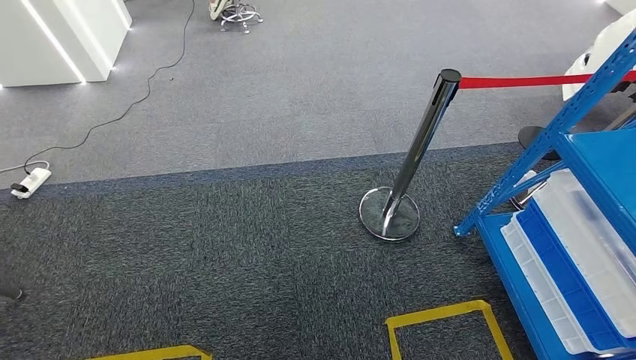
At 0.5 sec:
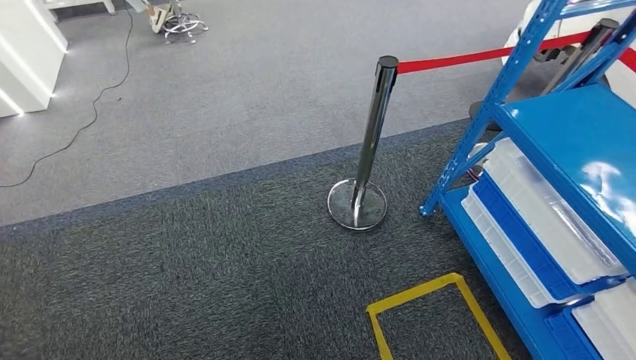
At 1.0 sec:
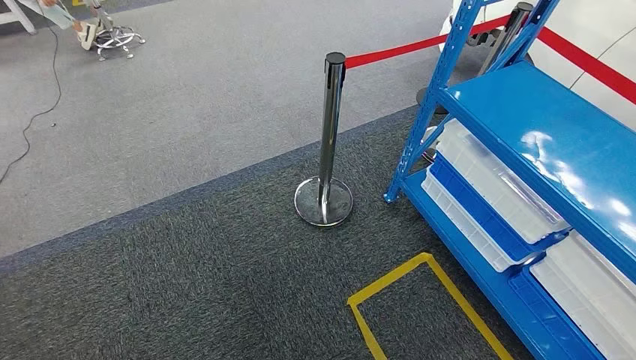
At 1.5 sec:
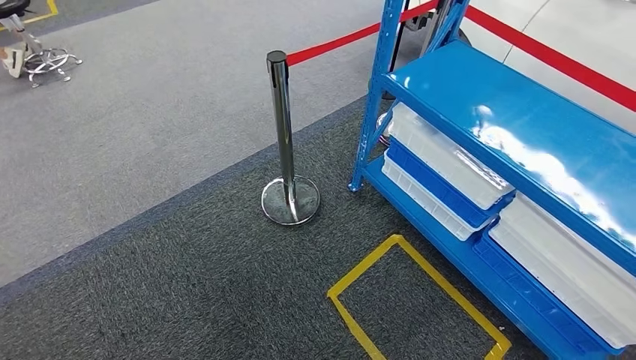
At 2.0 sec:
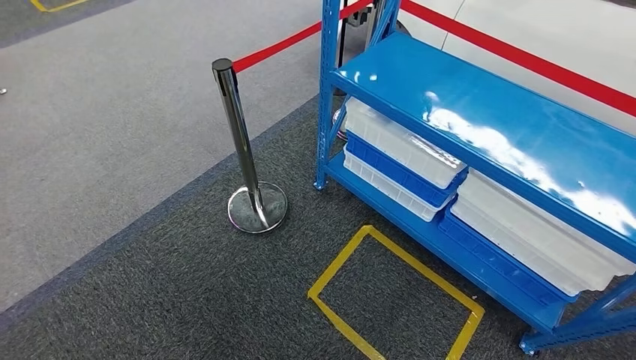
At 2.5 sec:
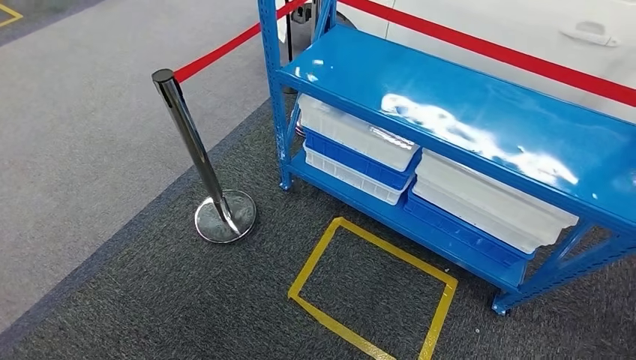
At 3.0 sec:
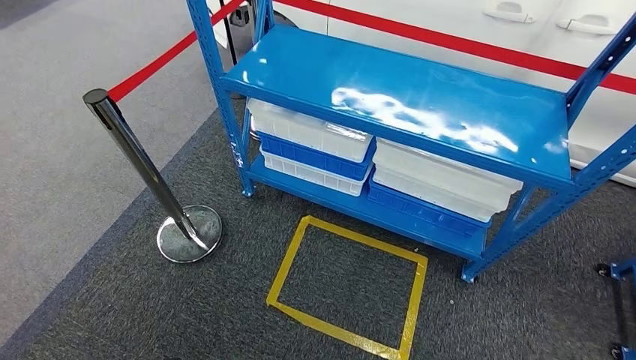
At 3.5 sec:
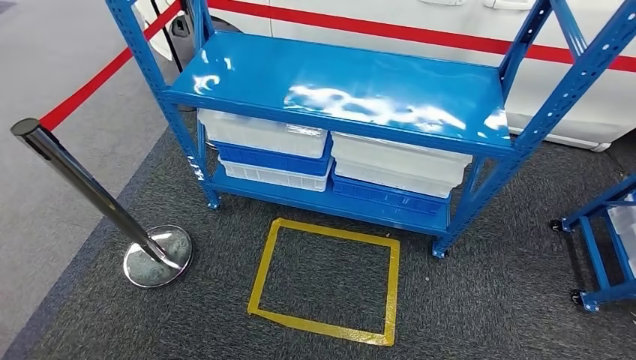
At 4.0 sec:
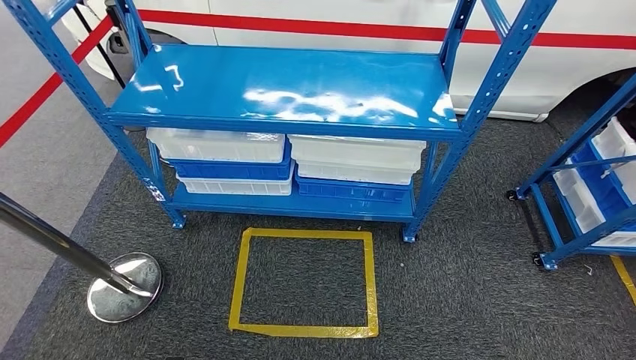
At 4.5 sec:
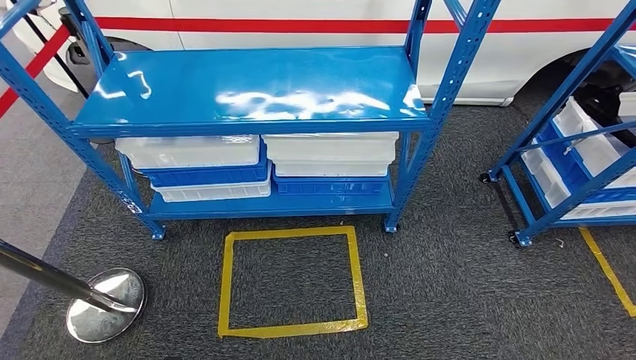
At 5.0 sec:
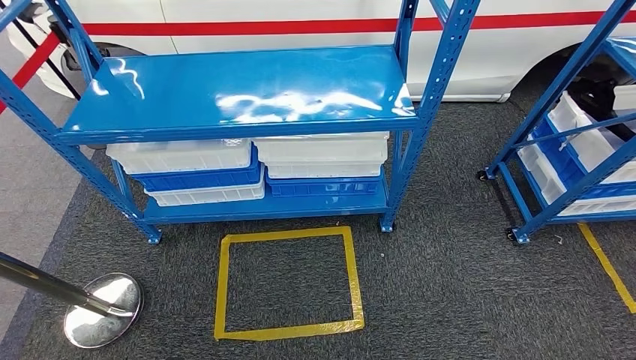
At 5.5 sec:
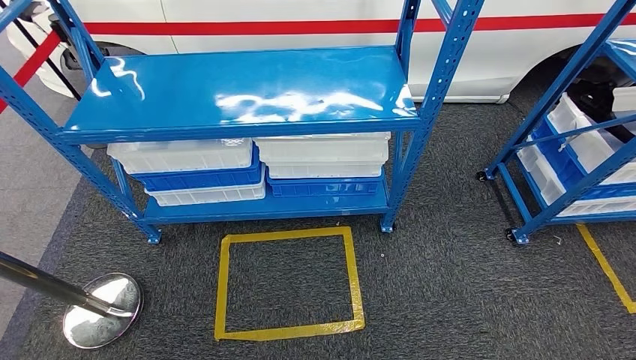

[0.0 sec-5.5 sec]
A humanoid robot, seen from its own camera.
Step, 0.0 sec to 5.5 sec: Move to the initial position of the shelf.

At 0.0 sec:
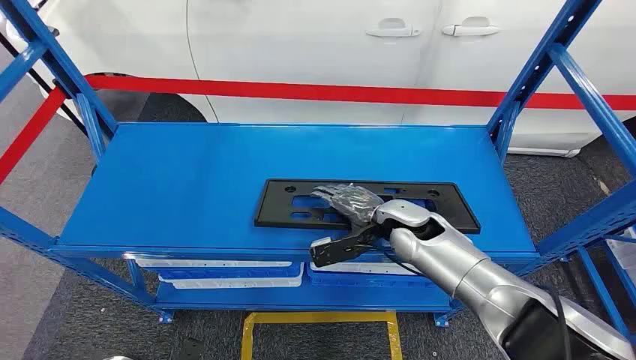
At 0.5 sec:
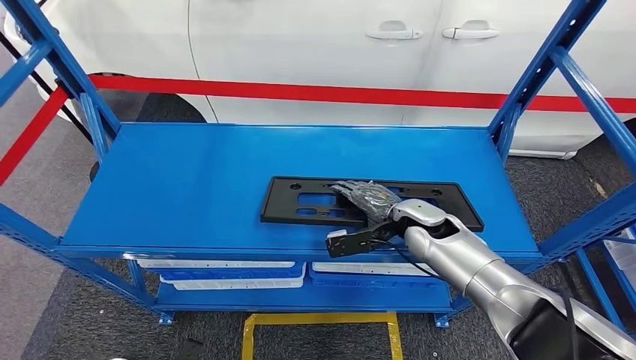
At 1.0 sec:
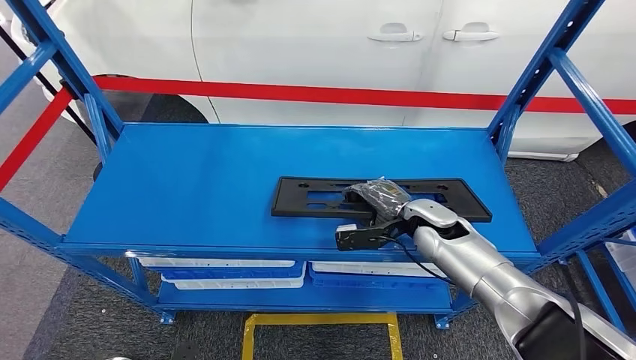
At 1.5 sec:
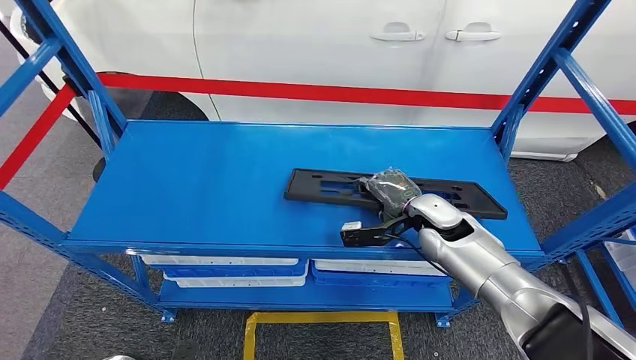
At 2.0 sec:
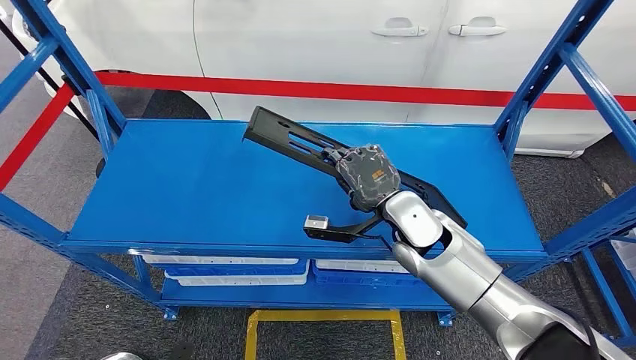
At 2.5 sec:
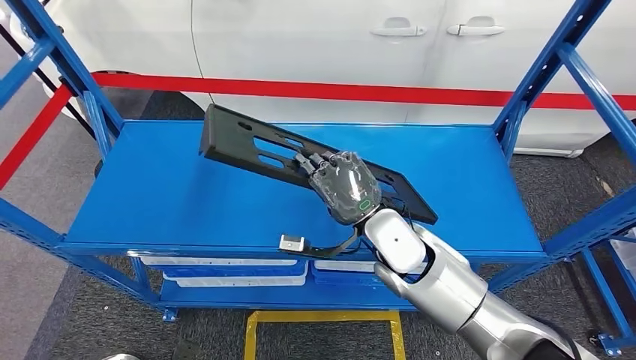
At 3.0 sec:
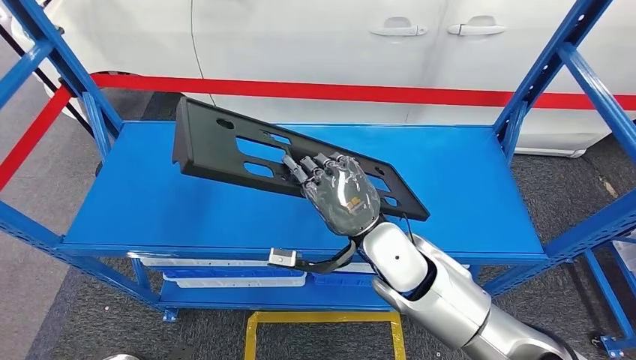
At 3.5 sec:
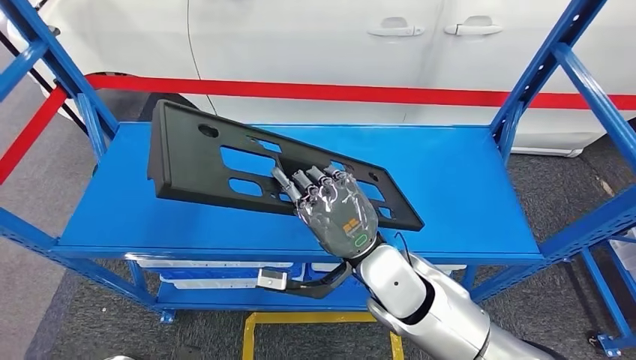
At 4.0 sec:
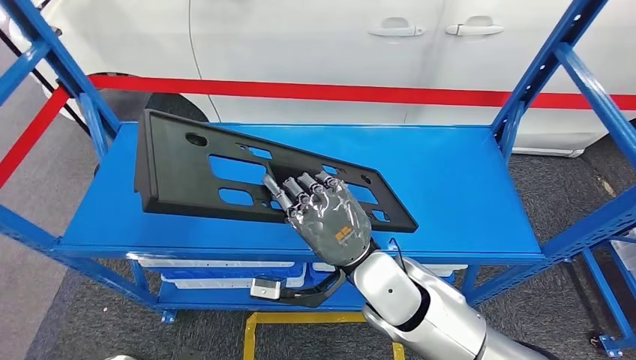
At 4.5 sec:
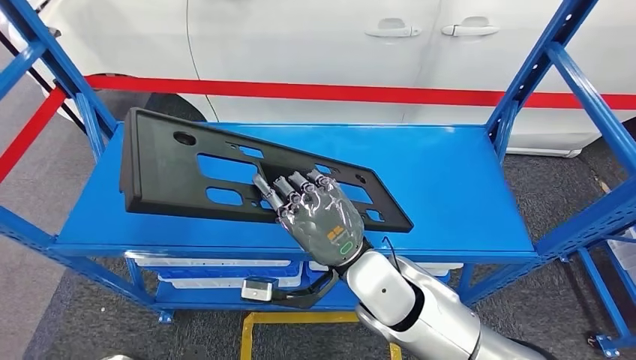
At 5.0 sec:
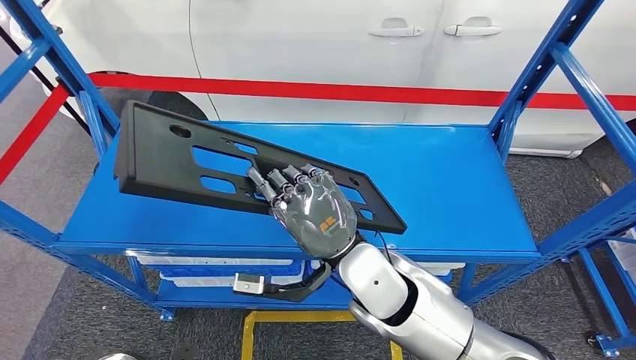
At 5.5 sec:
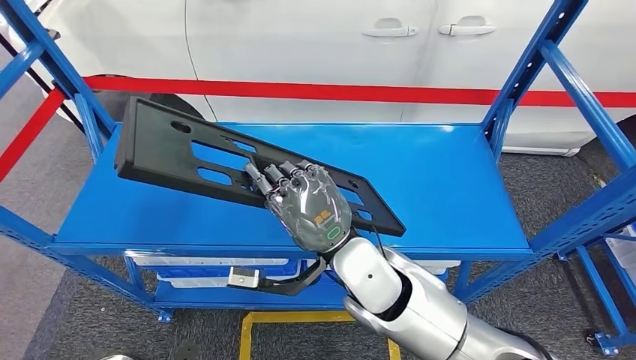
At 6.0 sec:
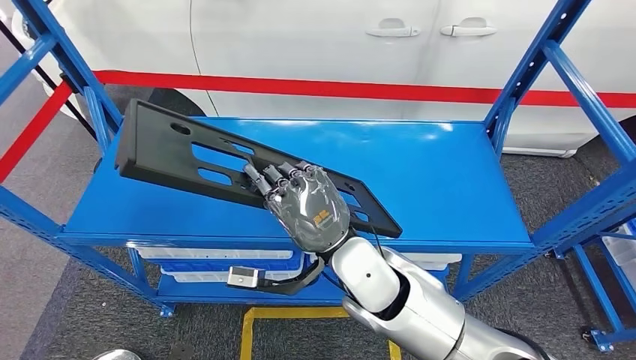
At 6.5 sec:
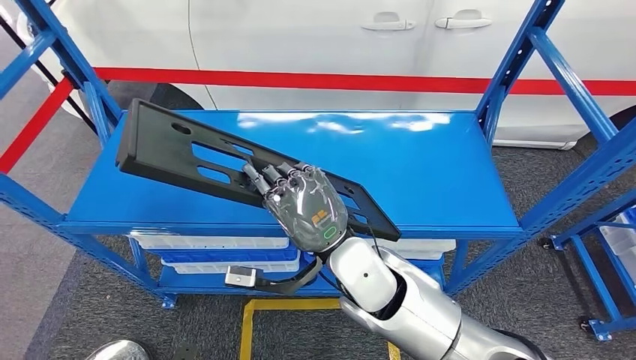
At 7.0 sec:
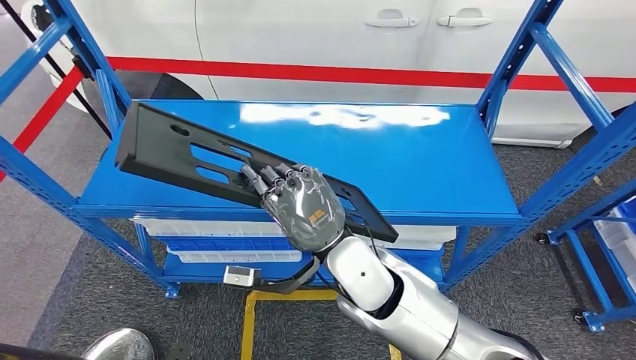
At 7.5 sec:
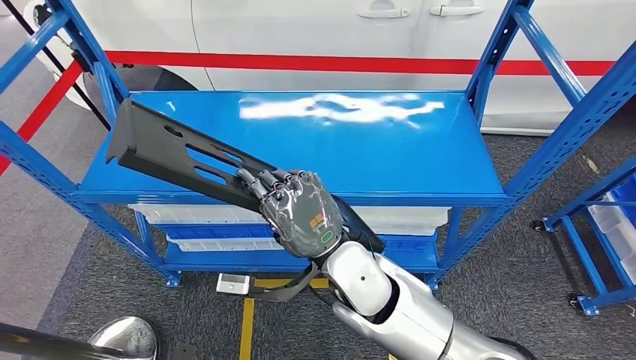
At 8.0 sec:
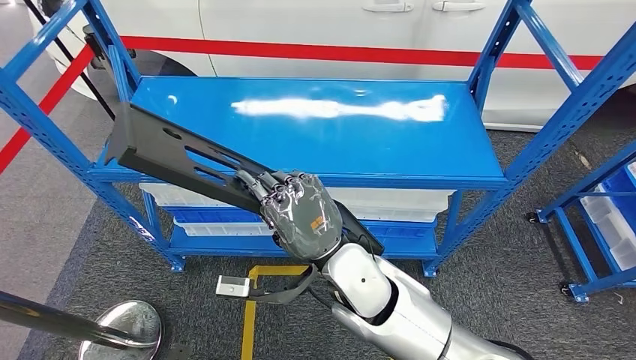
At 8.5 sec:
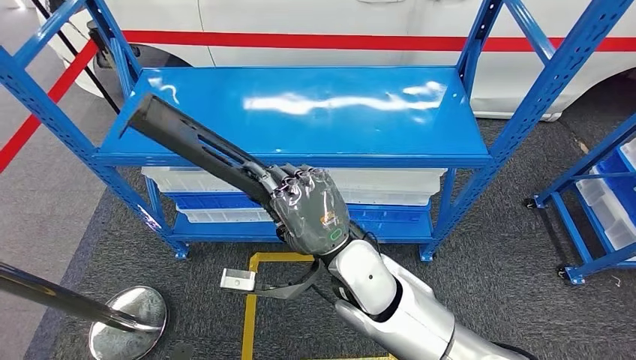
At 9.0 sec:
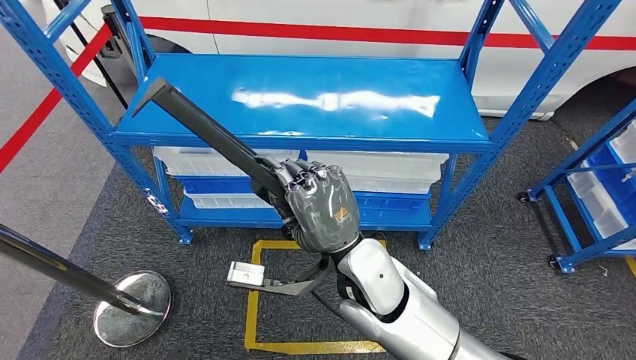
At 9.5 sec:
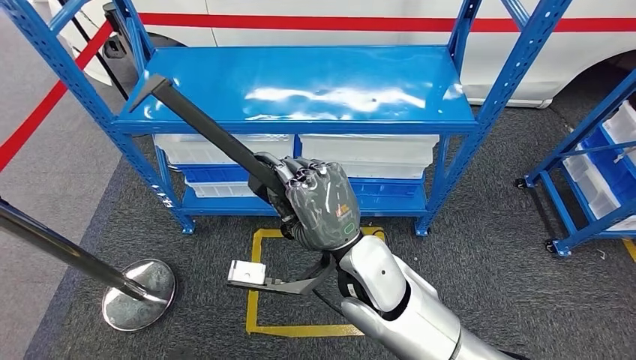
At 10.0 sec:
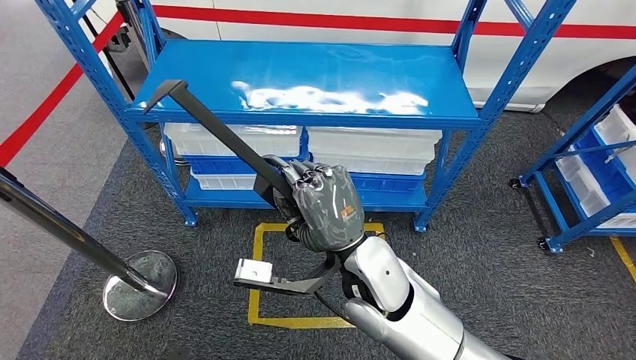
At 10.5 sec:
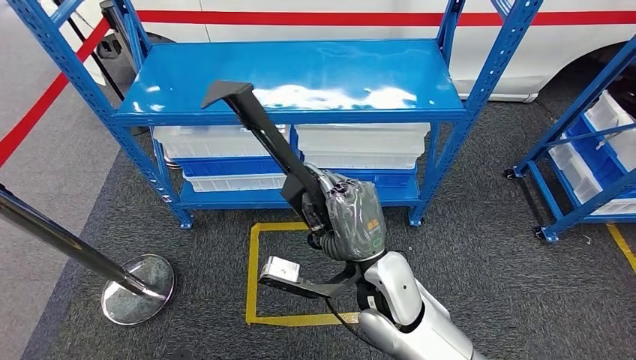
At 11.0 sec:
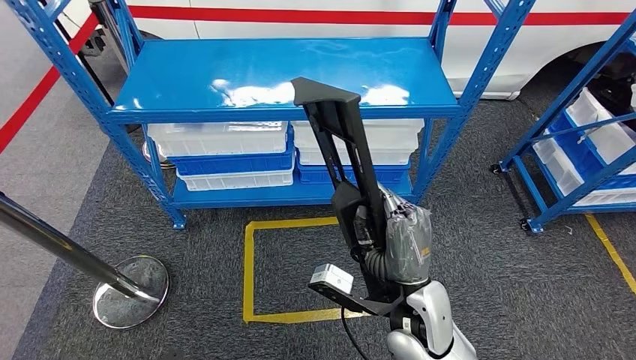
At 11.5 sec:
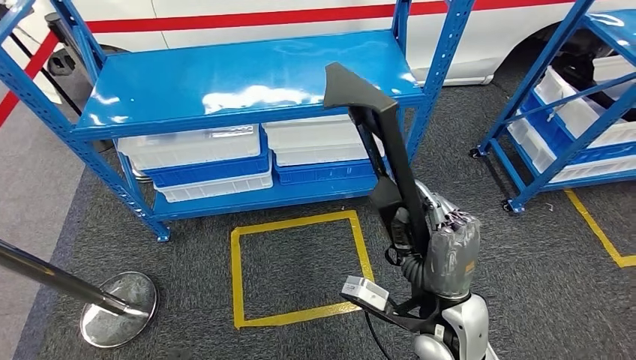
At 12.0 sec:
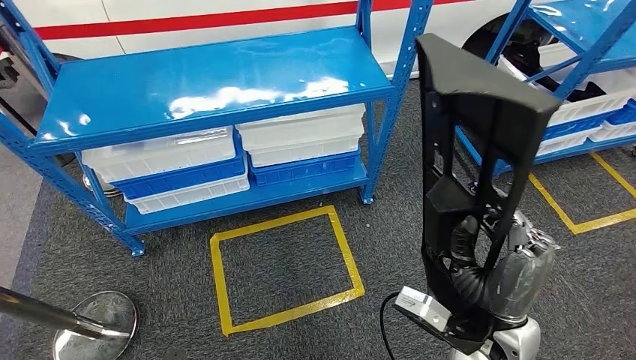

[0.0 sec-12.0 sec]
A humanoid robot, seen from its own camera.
Step, 0.0 sec to 7.5 sec: Pick up the large material from the shelf.

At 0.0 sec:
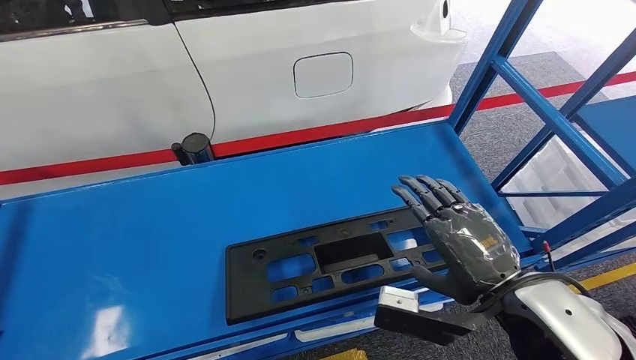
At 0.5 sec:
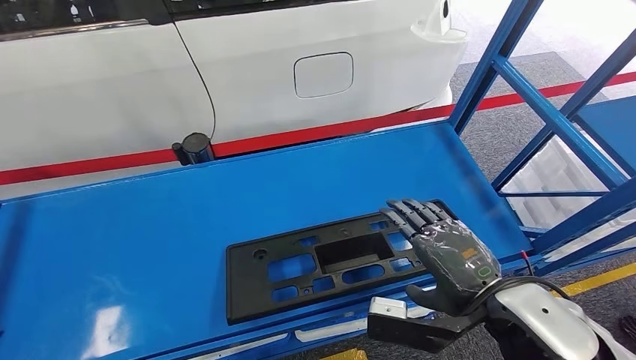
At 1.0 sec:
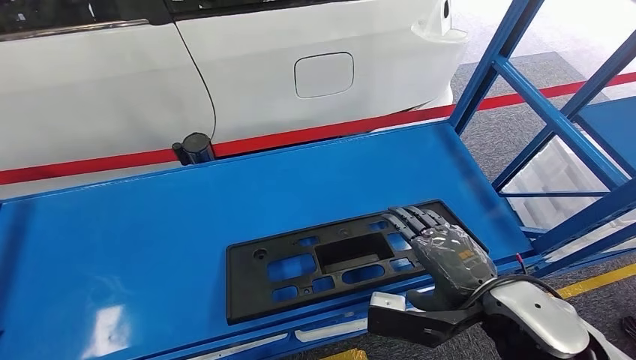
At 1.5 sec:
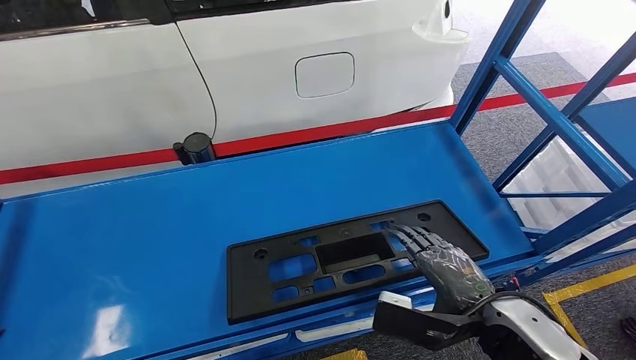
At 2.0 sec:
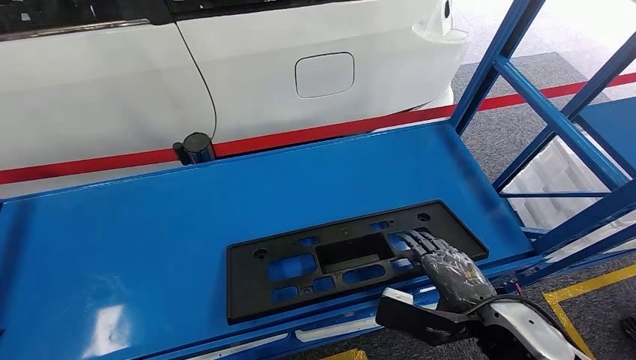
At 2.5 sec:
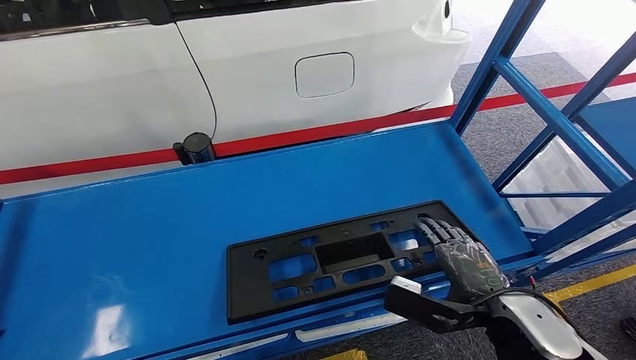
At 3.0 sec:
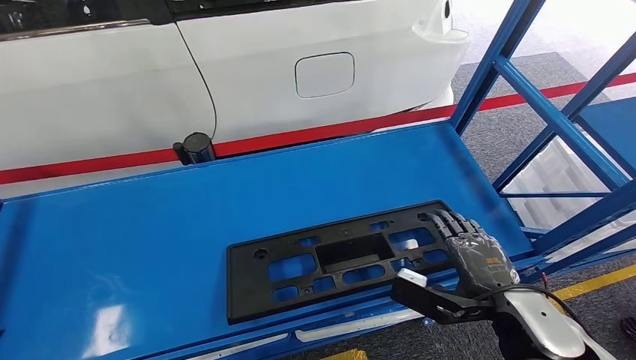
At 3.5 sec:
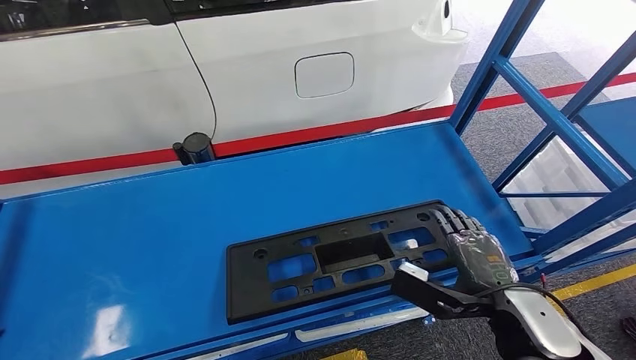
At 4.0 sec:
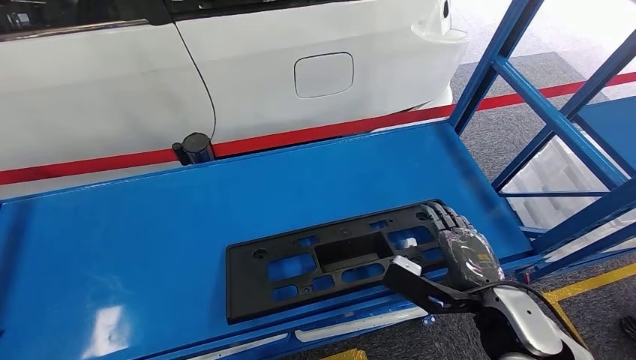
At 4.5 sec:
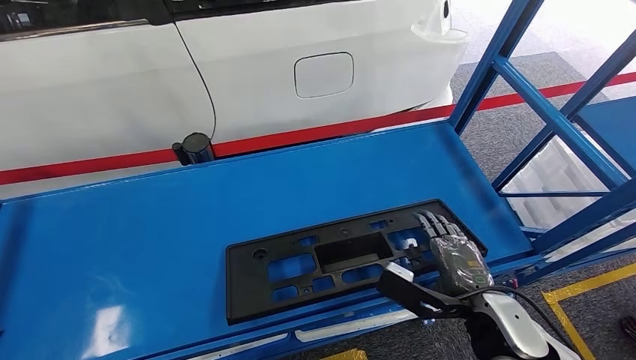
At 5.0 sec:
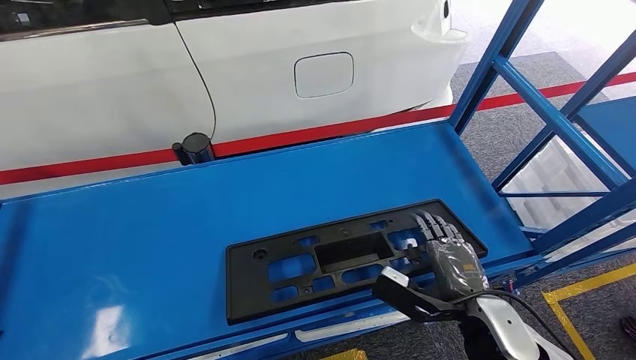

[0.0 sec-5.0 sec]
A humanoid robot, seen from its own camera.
0.0 sec to 2.5 sec: The right hand shifts some 10 cm downward.
2.5 sec to 5.0 sec: The right hand goes approximately 5 cm downward.
